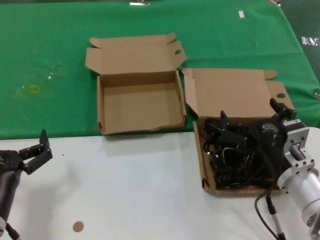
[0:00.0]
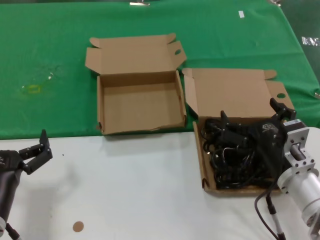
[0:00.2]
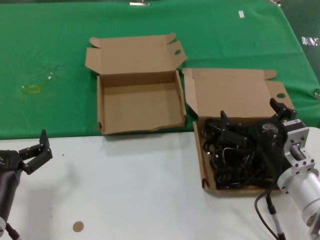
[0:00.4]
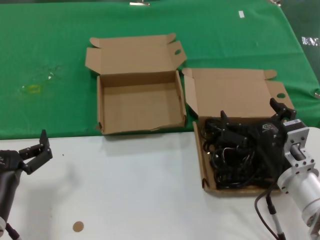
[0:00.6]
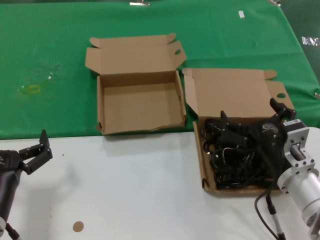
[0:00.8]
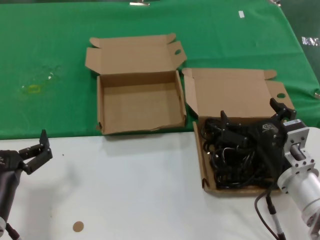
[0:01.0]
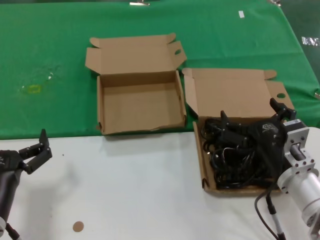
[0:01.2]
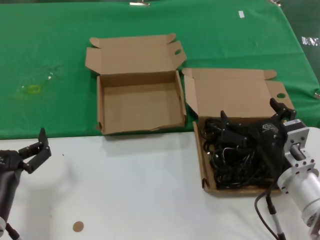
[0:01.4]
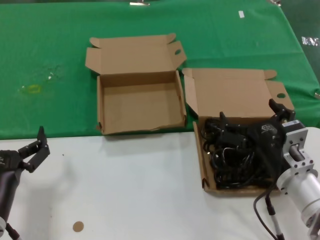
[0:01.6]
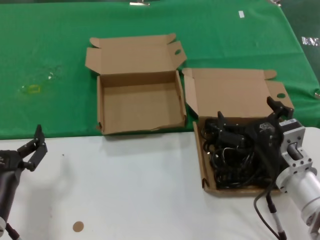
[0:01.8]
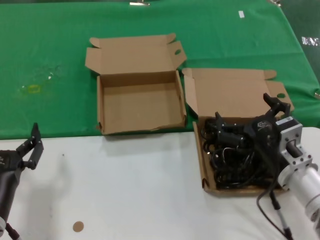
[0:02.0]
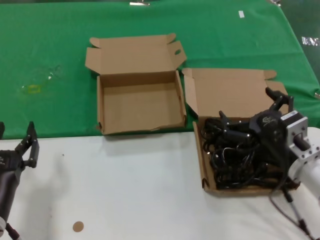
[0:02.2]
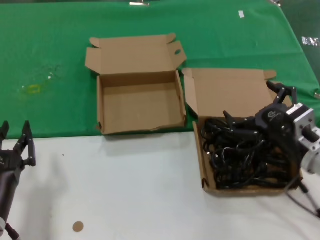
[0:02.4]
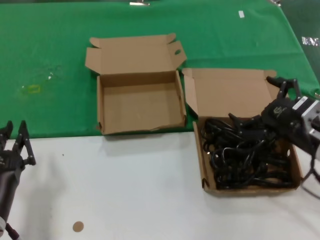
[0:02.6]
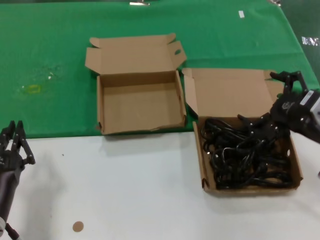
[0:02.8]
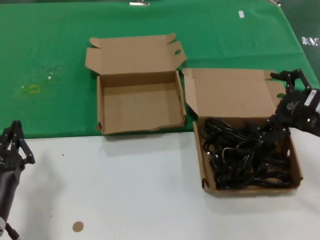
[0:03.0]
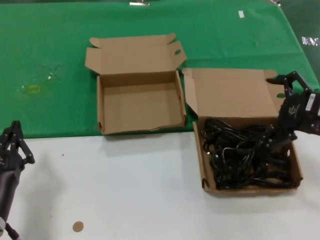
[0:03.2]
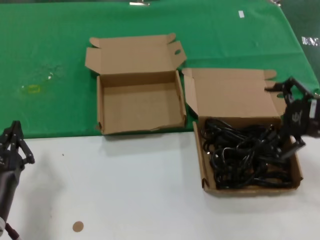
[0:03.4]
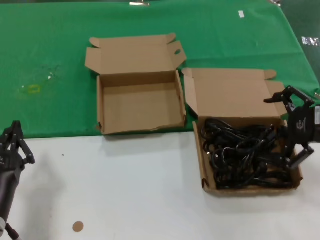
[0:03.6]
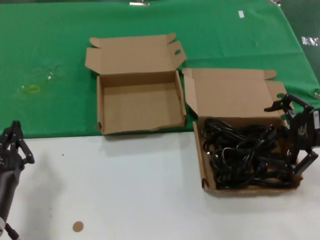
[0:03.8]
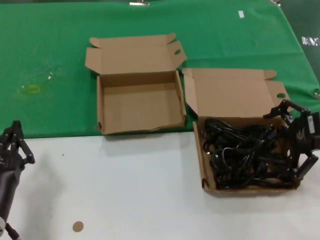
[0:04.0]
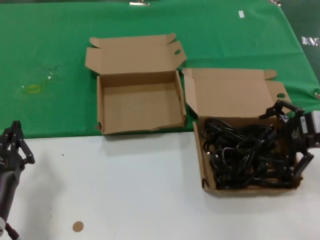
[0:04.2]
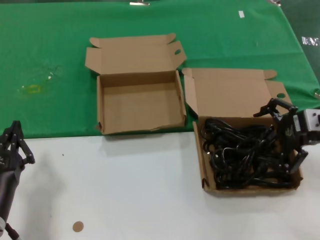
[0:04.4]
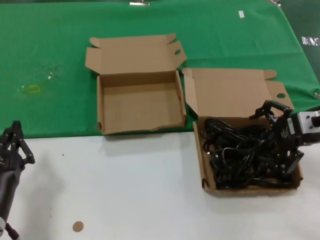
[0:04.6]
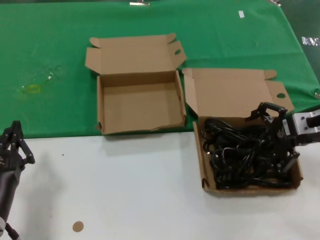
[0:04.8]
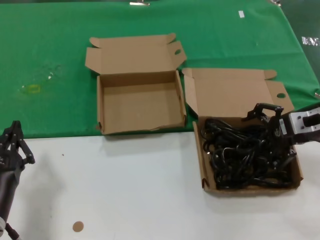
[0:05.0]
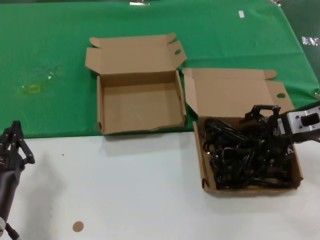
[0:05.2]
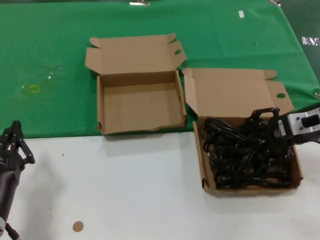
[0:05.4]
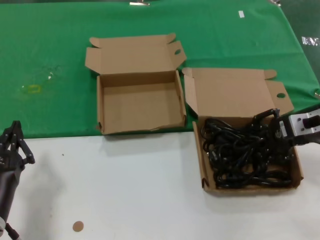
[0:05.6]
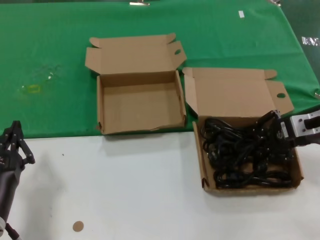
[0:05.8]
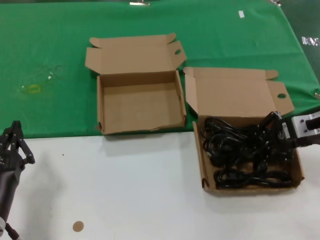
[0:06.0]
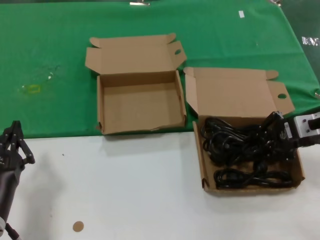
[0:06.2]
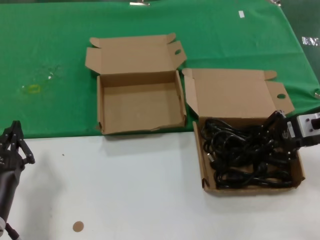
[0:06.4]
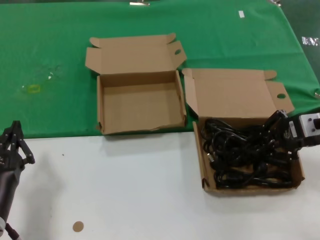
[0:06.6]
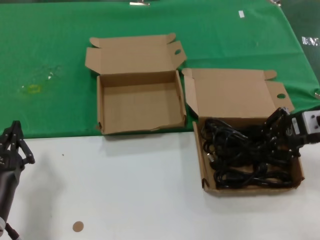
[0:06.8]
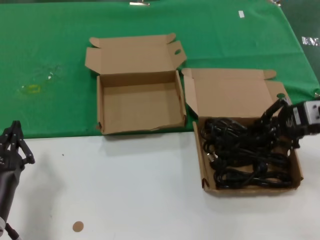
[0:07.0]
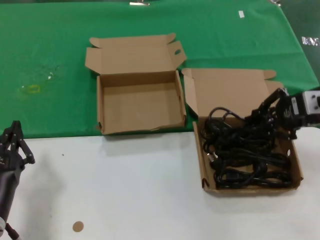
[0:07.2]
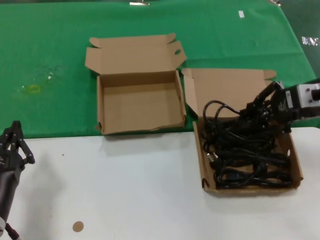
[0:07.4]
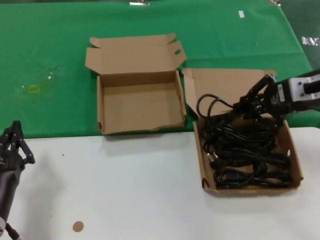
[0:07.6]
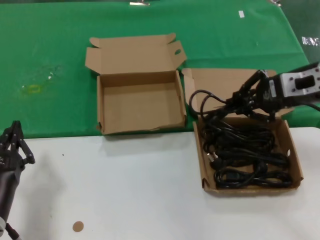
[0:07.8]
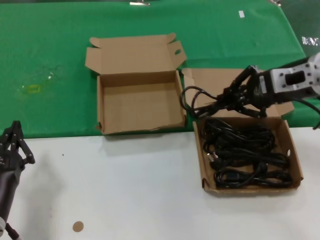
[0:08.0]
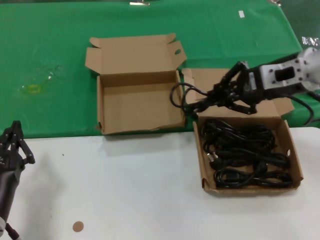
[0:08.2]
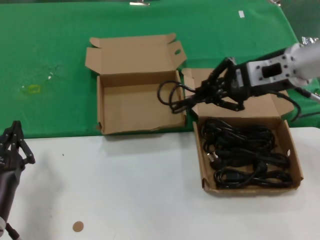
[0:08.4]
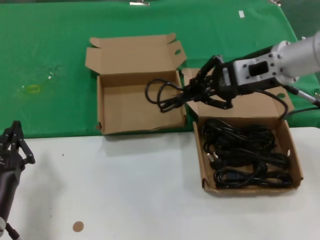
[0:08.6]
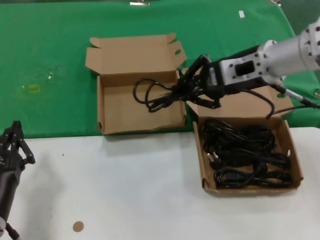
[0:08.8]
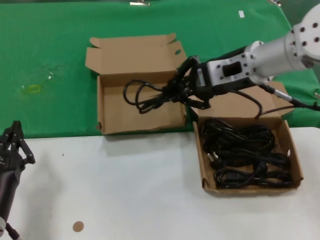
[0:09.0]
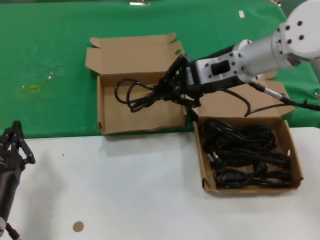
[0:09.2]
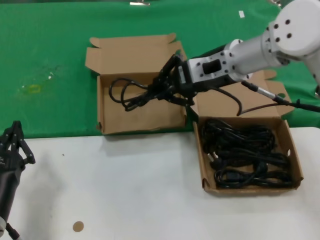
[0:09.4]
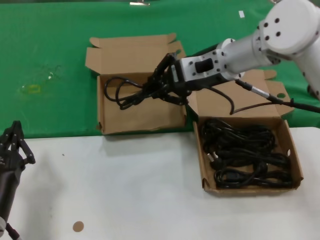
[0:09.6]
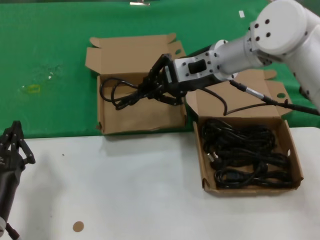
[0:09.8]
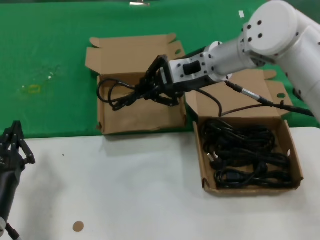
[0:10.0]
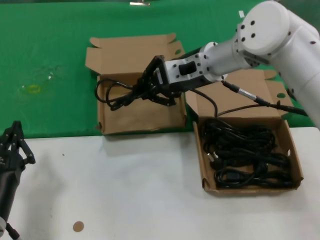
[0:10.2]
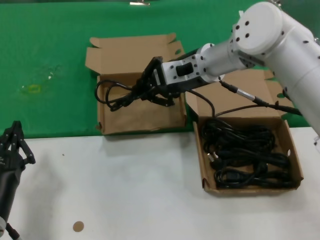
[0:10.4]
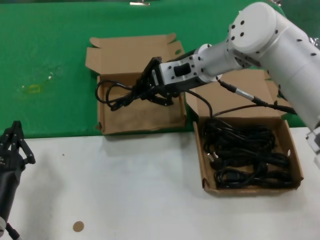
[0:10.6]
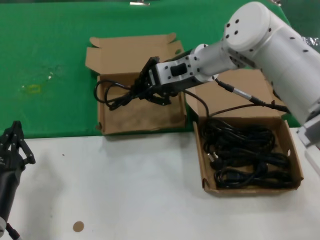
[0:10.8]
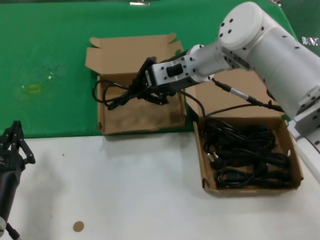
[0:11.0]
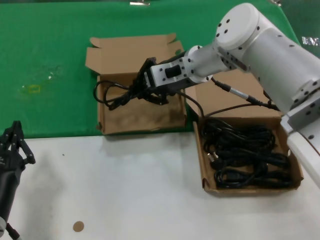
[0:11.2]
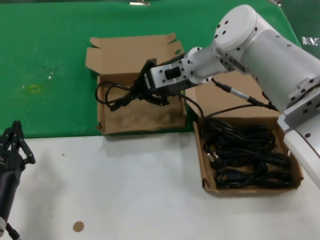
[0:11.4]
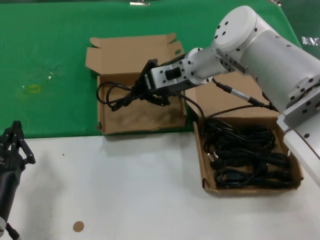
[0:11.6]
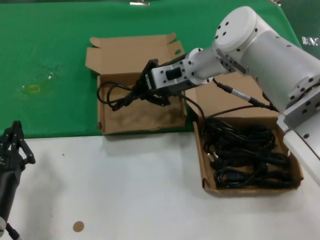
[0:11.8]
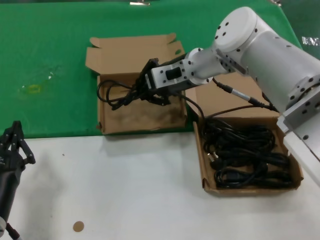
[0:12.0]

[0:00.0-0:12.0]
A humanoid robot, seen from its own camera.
Task of the whole recording: take the parts from the box containing them and put them into an empty box.
Step, 0:00.0 to 0:05.8: Grasp the data cable.
0:00.0 to 0:01.6: Neither hand changes place.
0:01.6 to 0:03.0: The right hand goes about 15 cm to the right and upward.
0:03.0 to 0:04.4: The right hand is displaced forward by roughly 5 cm.
0:04.4 to 0:06.0: The hands move only a little.
0:06.0 to 0:07.6: The right hand goes roughly 5 cm upward.
0:07.6 to 0:09.0: The right hand shifts approximately 15 cm to the left.
0:09.0 to 0:10.4: The right hand heads to the left and forward, covering some 10 cm.
0:10.4 to 0:12.0: There are only small adjustments of the hands.

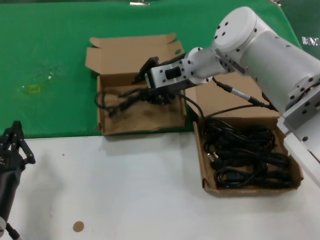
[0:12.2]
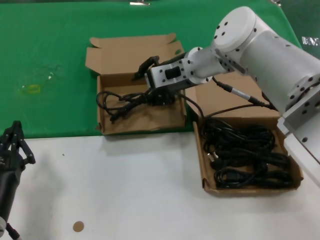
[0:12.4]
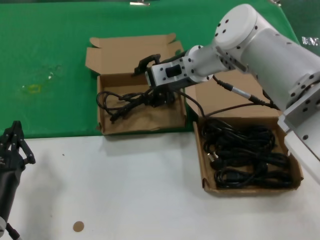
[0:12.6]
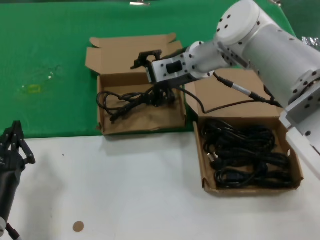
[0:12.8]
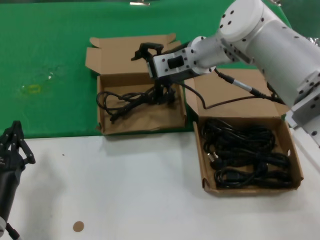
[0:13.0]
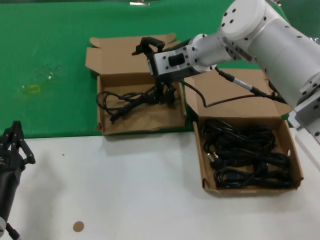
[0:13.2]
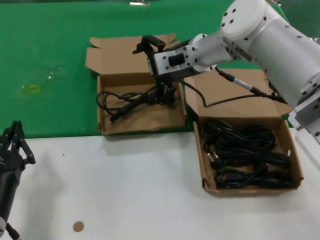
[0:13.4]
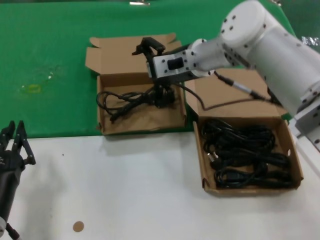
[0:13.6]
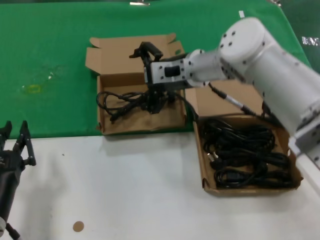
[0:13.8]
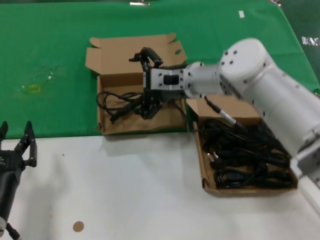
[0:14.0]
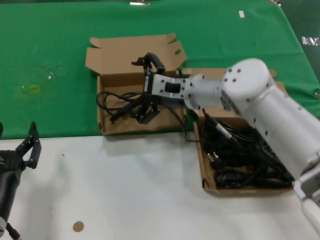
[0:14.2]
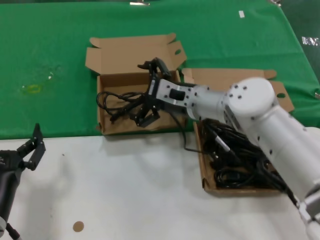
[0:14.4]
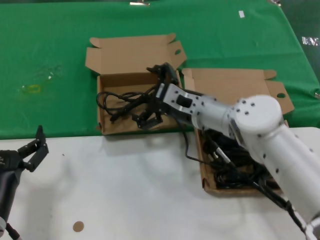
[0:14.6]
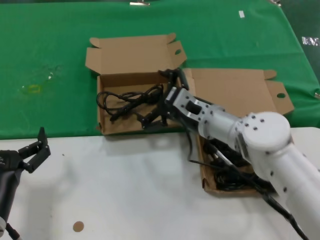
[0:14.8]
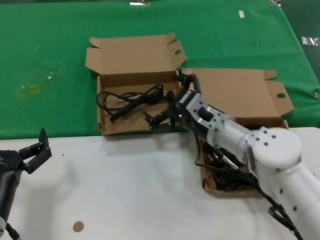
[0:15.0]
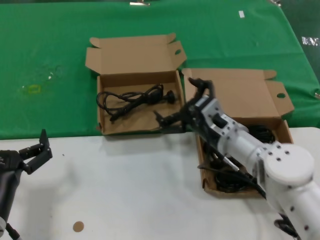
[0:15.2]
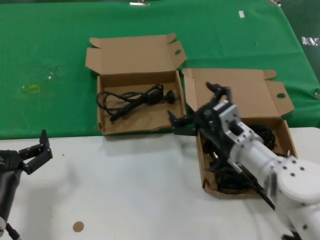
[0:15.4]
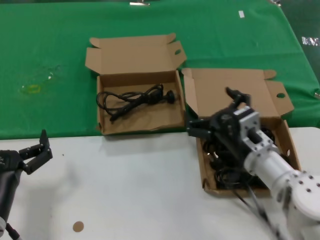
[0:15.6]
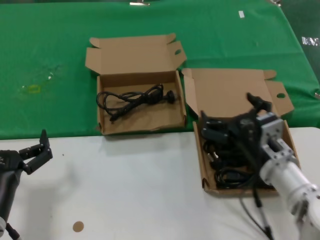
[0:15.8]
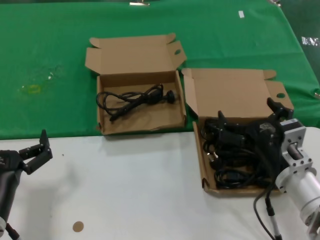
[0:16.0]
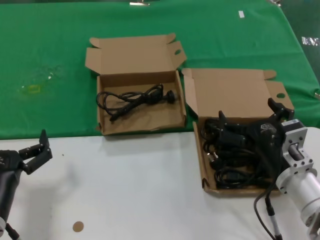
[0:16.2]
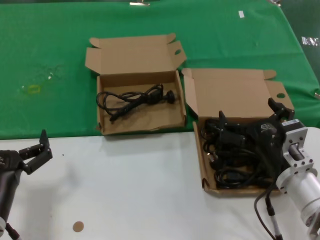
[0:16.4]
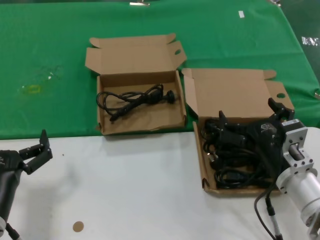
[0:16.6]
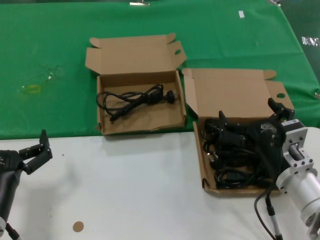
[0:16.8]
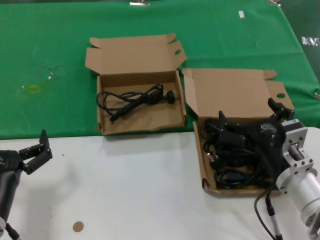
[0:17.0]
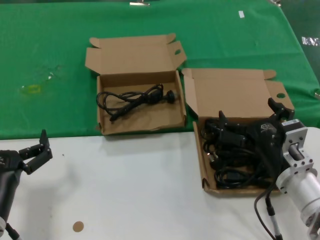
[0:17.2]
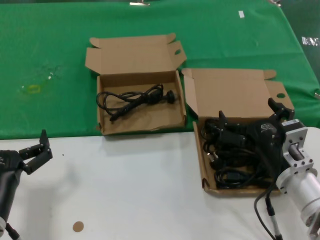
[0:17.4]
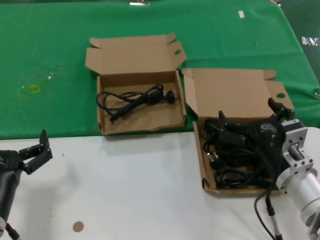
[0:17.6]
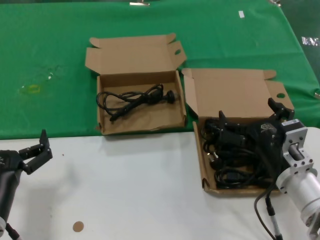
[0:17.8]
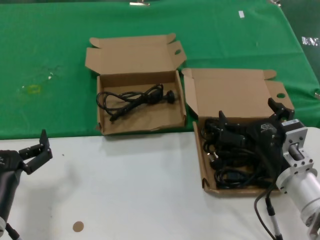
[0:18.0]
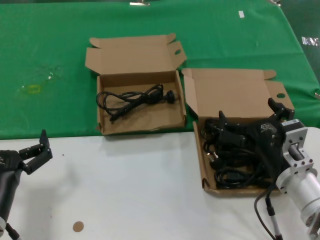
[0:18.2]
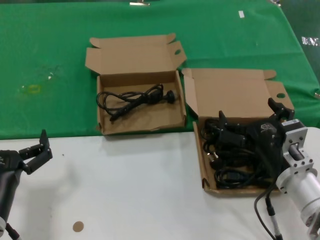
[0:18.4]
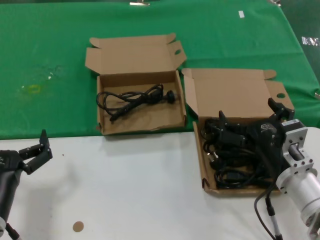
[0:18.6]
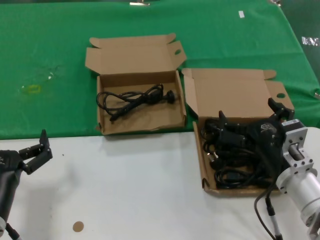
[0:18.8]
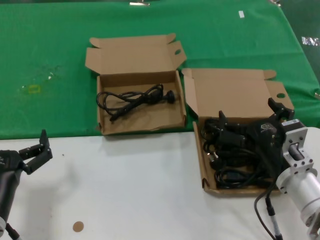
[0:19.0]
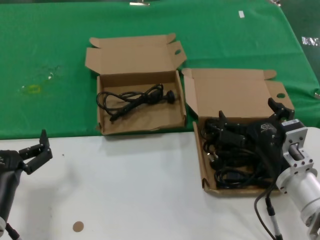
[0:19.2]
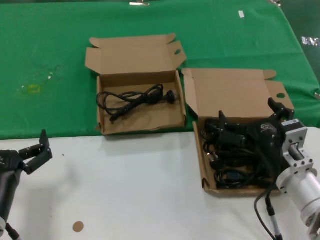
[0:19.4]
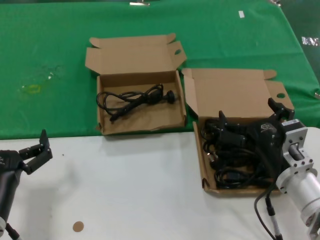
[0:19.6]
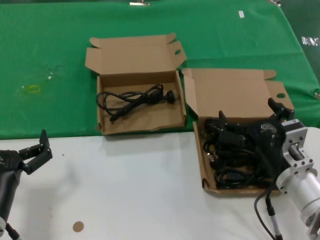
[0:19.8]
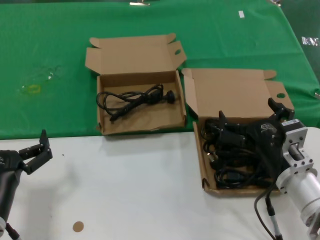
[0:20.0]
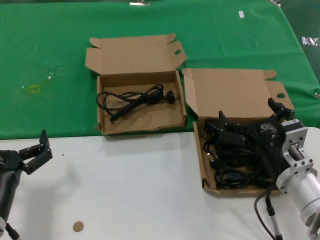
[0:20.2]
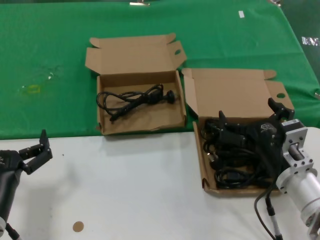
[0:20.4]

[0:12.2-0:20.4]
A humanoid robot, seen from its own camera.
Task of the whole recording: take the parts from the box containing them and put them into an empty box.
0:12.2 to 0:13.8: There are only small adjustments of the hands.
0:13.8 to 0:15.4: The right hand travels downward, backward and to the right by roughly 25 cm.
0:15.4 to 0:17.2: The right hand moves backward and to the right, roughly 10 cm.
0:17.2 to 0:20.4: The two hands keep their place.

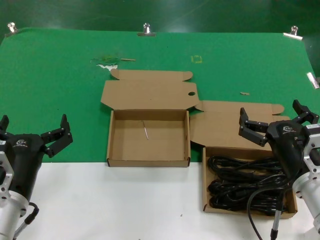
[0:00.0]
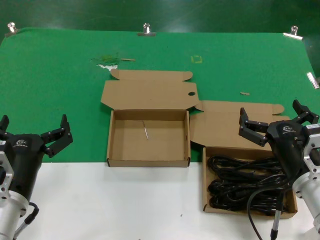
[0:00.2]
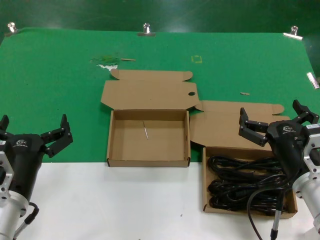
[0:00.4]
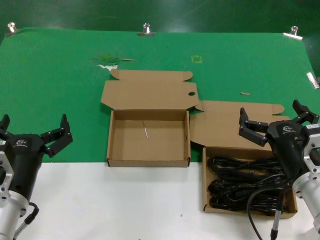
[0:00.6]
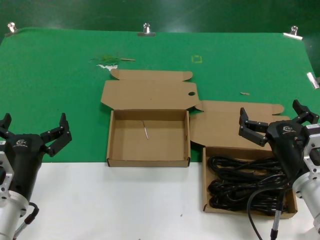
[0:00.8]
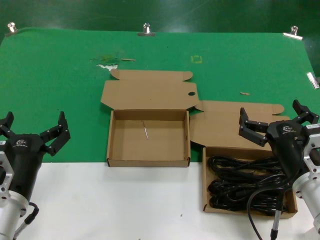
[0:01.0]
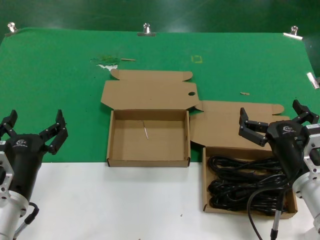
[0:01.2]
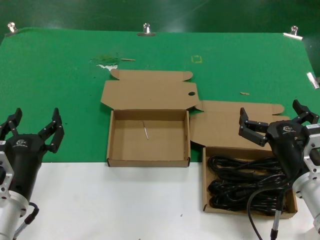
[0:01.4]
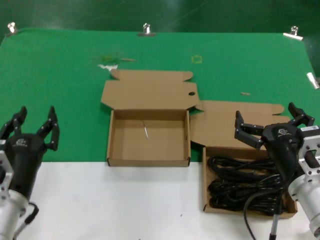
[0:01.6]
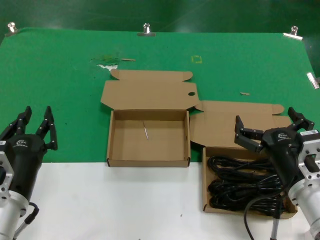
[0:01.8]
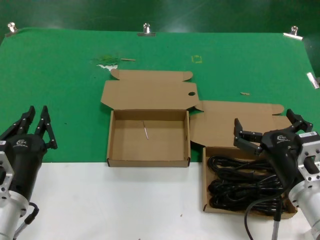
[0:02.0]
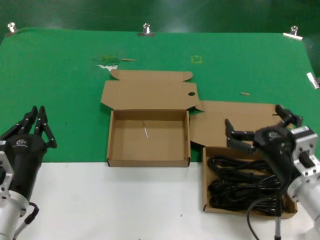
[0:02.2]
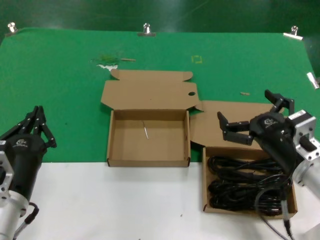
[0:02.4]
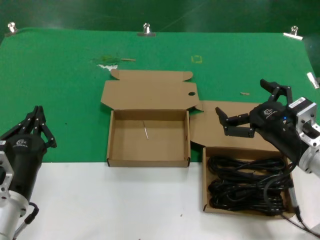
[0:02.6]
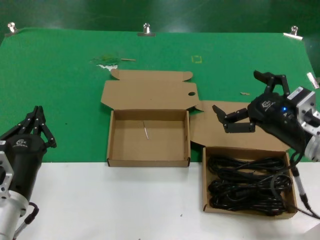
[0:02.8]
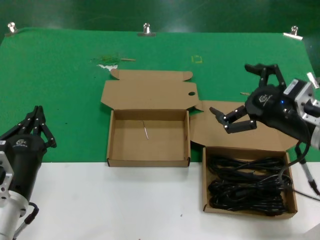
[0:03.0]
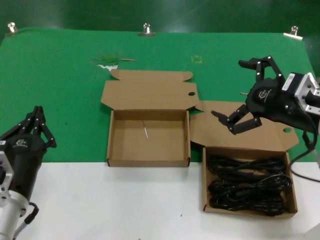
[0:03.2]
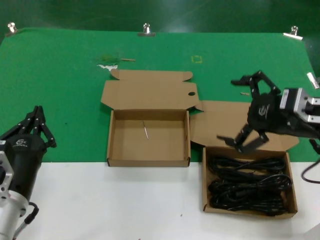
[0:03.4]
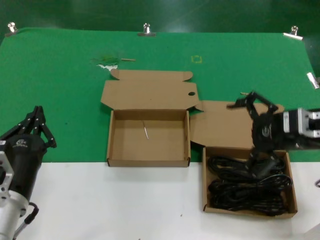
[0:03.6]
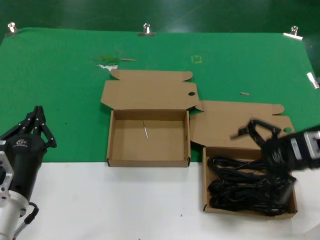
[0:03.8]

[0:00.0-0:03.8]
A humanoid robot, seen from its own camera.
Task of the whole recording: take the parts from the box containing them and put them into an empty box.
0:00.0 to 0:01.2: Both hands stay put.
0:01.2 to 0:02.6: The right hand ends up roughly 5 cm from where it was.
0:02.6 to 0:03.8: The right hand shifts roughly 10 cm upward and to the right.
